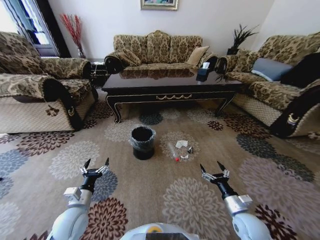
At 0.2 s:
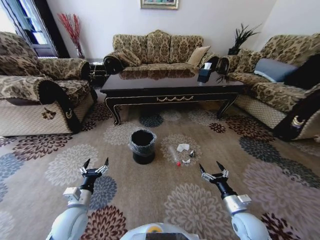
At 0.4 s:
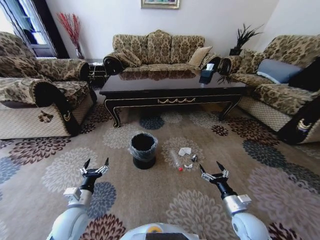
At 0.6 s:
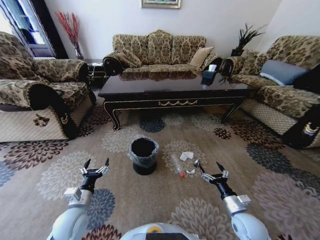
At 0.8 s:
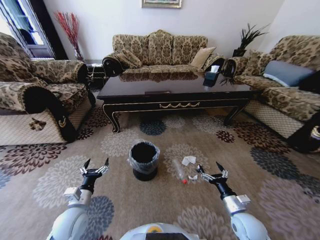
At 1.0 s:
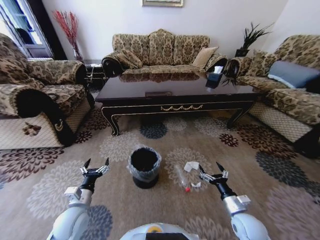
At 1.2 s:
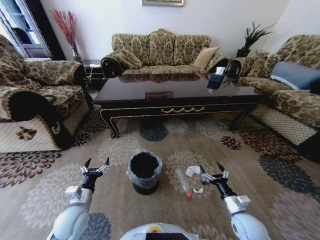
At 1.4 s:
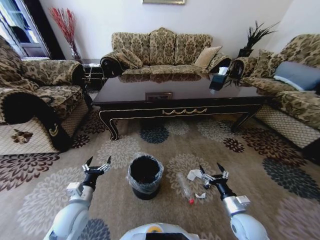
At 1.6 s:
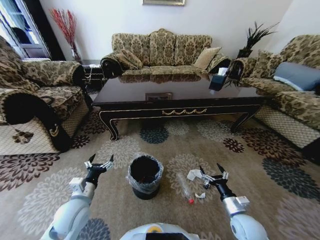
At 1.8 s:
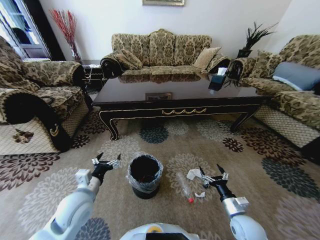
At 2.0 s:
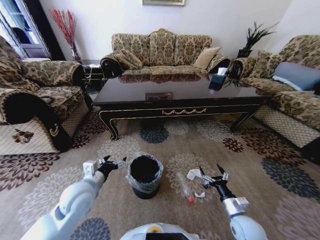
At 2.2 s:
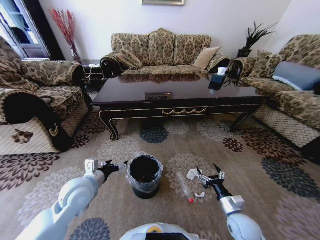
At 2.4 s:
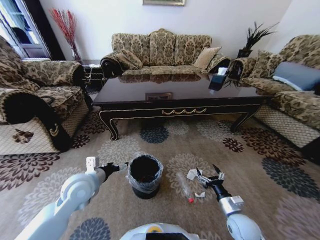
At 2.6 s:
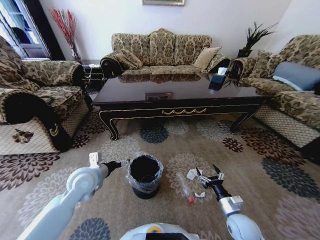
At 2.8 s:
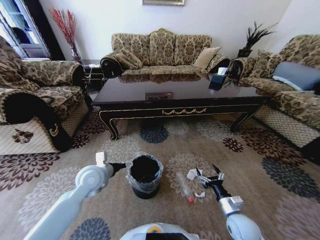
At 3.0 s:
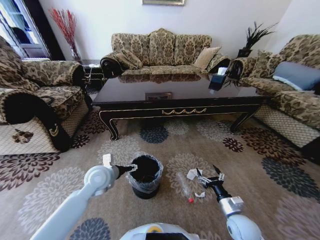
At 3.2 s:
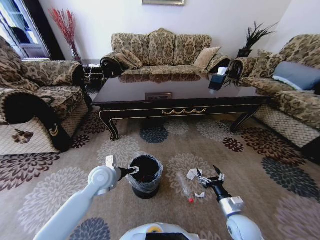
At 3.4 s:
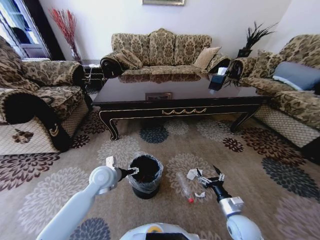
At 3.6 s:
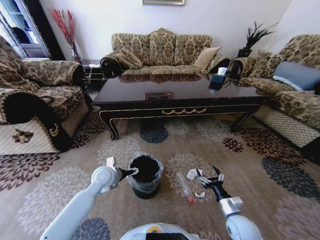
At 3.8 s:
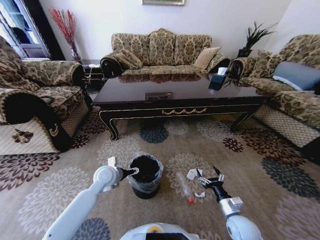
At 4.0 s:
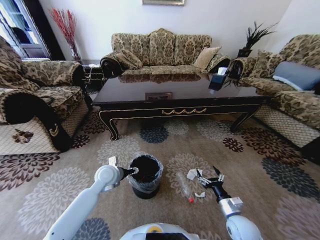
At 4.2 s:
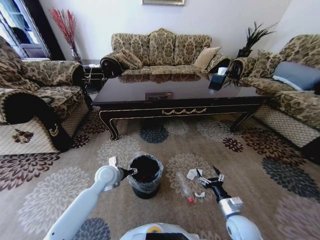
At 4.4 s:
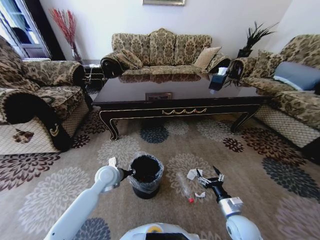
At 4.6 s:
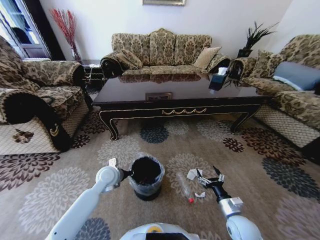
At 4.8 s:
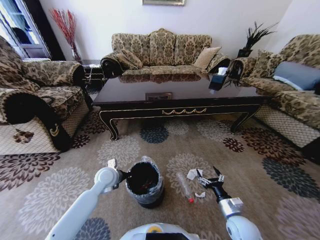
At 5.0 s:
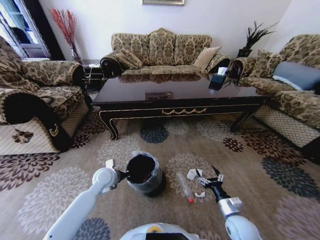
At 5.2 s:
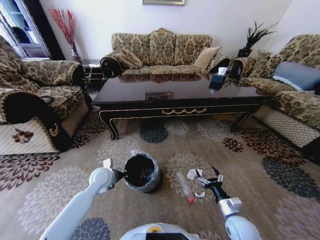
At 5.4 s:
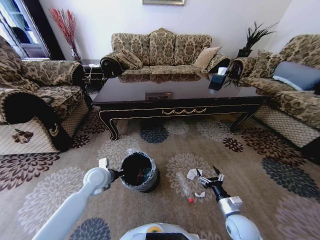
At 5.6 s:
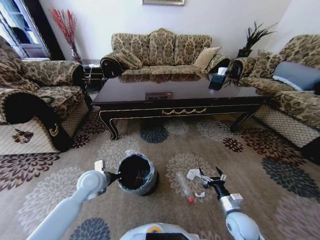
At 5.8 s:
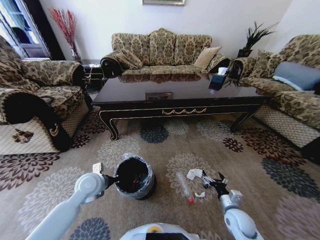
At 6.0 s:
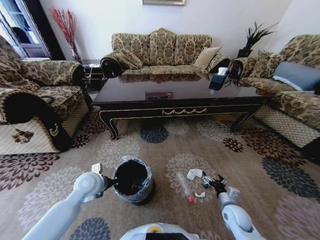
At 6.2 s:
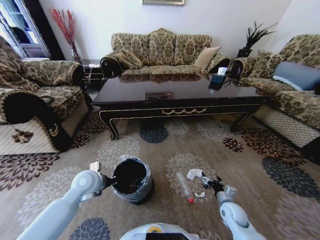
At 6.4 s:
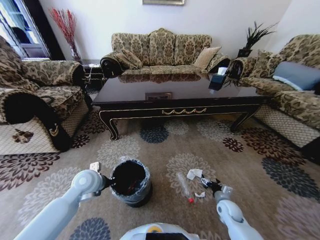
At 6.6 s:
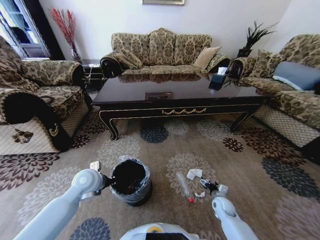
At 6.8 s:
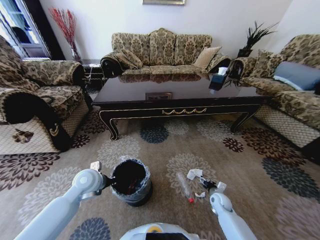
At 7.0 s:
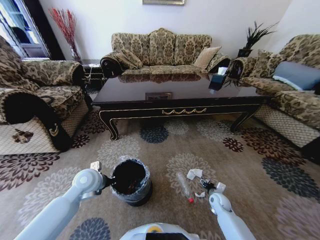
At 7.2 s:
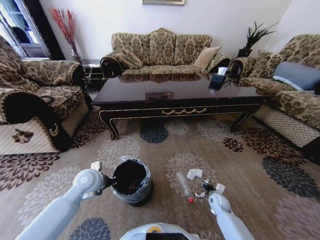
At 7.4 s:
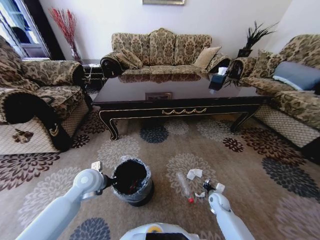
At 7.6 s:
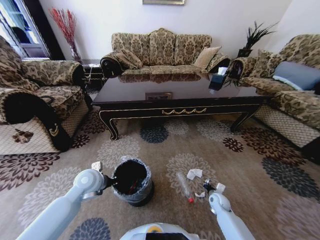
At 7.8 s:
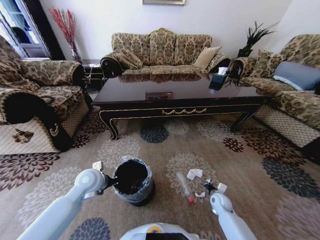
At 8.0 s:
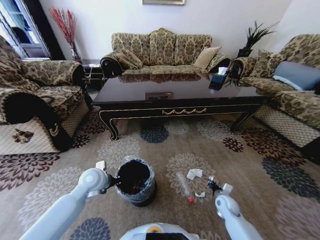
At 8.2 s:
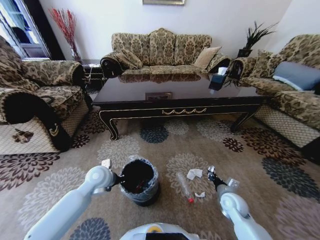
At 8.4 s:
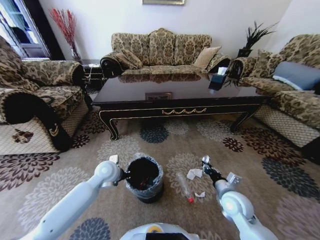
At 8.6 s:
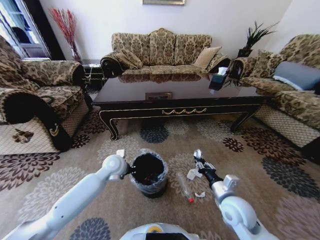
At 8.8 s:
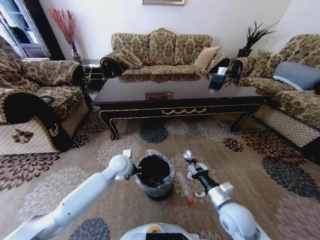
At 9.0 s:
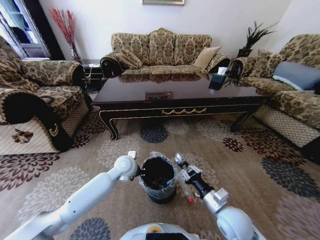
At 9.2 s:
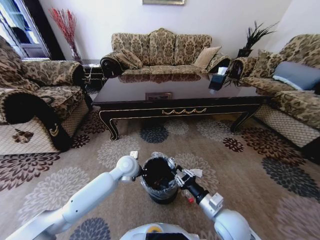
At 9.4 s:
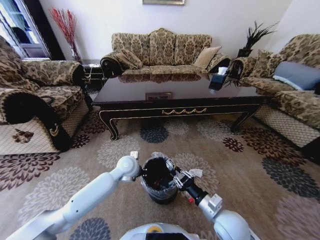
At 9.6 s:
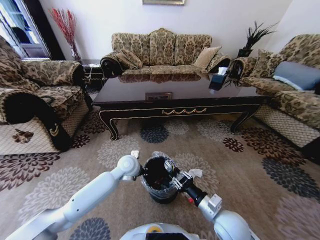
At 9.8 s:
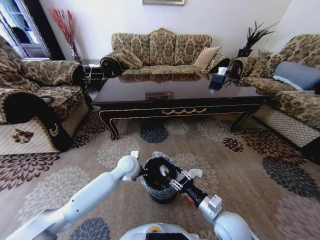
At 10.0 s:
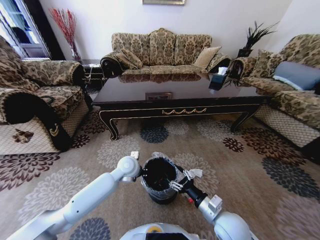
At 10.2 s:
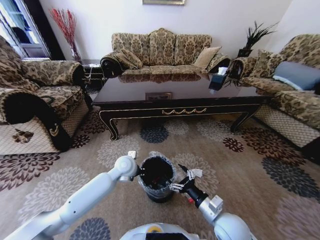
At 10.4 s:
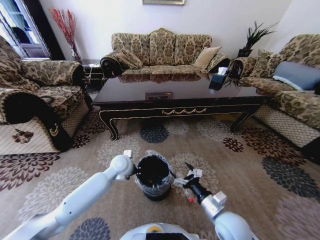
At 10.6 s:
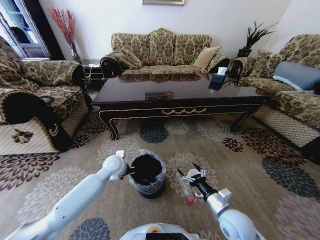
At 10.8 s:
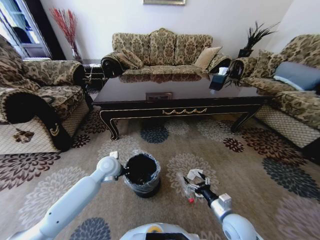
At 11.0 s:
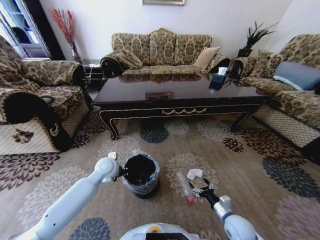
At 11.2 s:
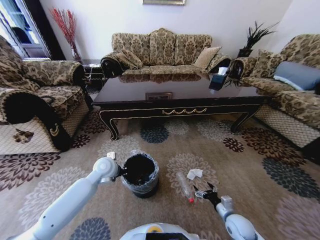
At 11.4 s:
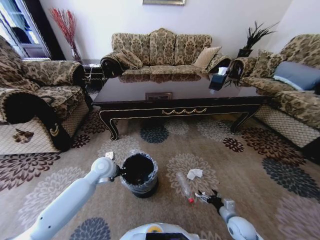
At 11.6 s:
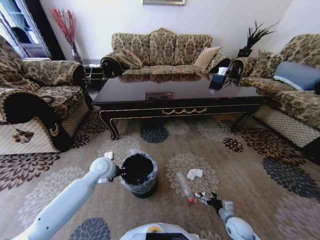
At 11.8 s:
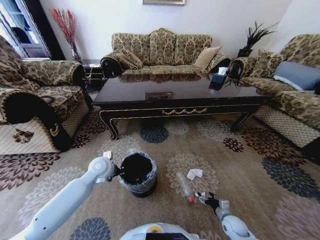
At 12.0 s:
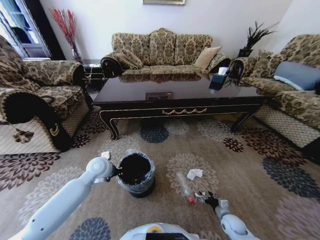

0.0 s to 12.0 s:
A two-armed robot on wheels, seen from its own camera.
Task of the whole recording: Move to the front of the table and pick up the trash from the floor, then place it into the trash bin.
0.0 to 1.6 s: The left gripper shifts by approximately 5 cm.
1.6 to 3.0 s: The left gripper moves forward and to the right, approximately 10 cm.
3.0 to 4.4 s: The left gripper heads downward, covering some 5 cm, and closes.
4.4 to 6.0 s: The left gripper changes place by some 10 cm, and closes.
6.0 to 7.6 s: The right gripper heads downward and forward, covering approximately 10 cm, and closes up.
7.6 to 9.0 s: The left gripper moves to the right and forward, about 15 cm; the right gripper travels upward, backward and to the left by some 25 cm.
9.0 to 10.4 s: The right gripper opens up.
10.4 to 12.0 s: The right gripper heads downward and to the right, covering roughly 25 cm, and closes, while the left gripper heads to the left, covering some 10 cm.

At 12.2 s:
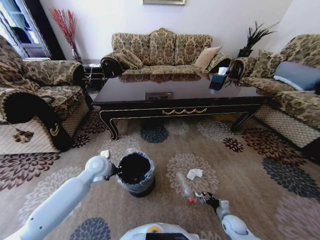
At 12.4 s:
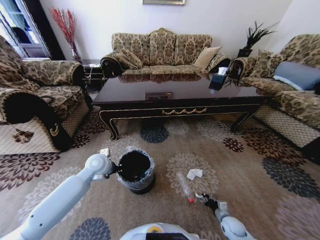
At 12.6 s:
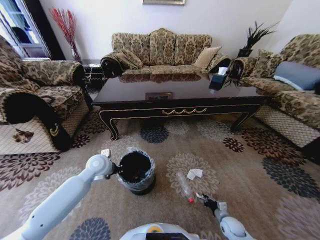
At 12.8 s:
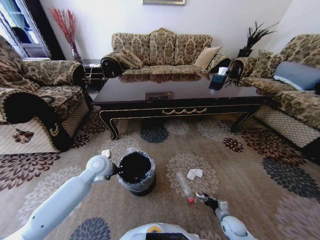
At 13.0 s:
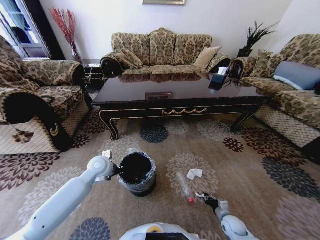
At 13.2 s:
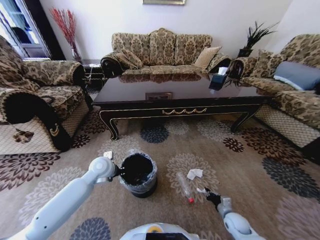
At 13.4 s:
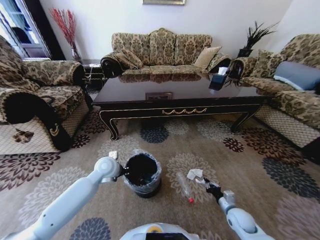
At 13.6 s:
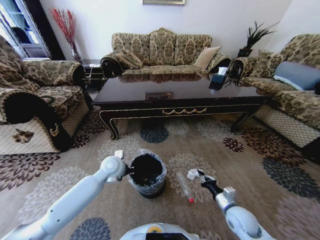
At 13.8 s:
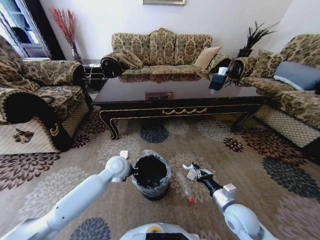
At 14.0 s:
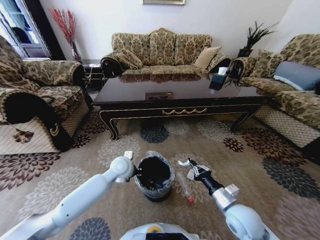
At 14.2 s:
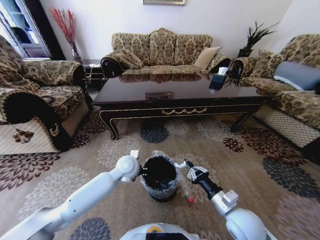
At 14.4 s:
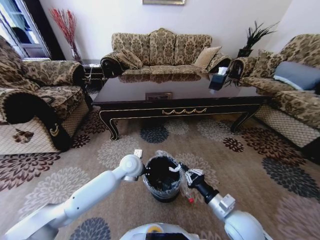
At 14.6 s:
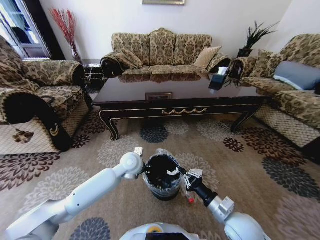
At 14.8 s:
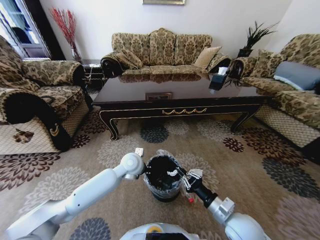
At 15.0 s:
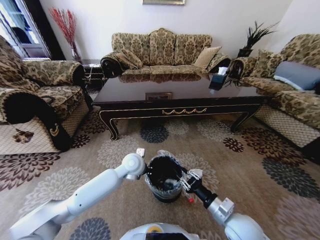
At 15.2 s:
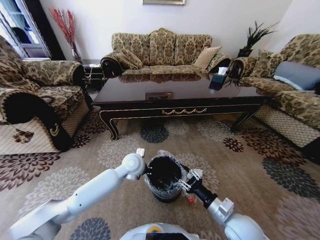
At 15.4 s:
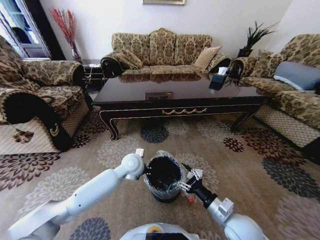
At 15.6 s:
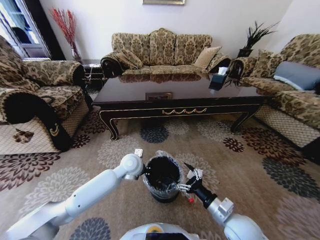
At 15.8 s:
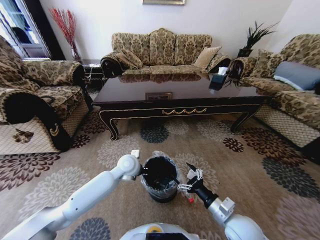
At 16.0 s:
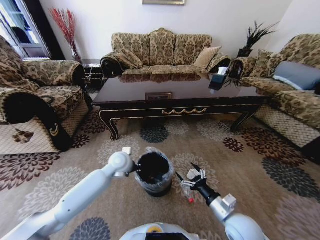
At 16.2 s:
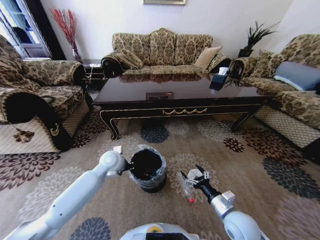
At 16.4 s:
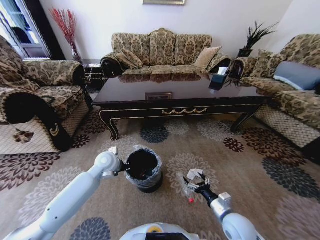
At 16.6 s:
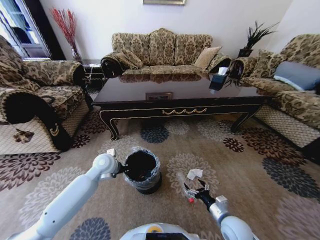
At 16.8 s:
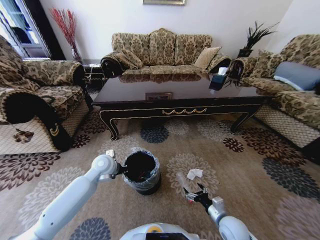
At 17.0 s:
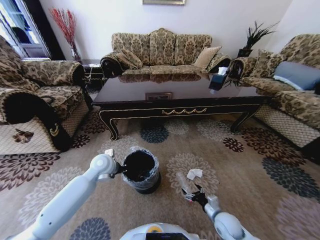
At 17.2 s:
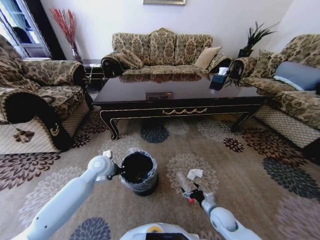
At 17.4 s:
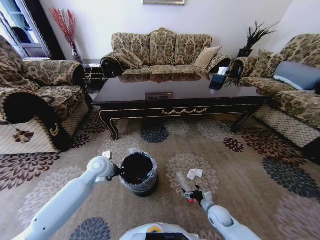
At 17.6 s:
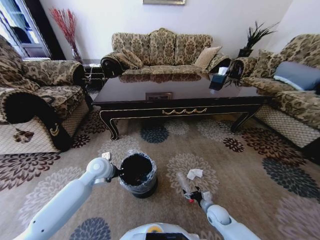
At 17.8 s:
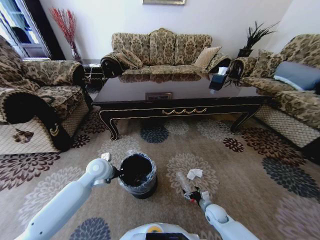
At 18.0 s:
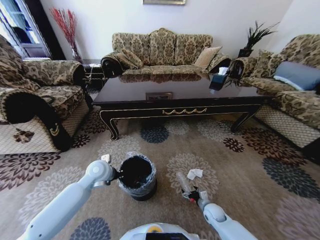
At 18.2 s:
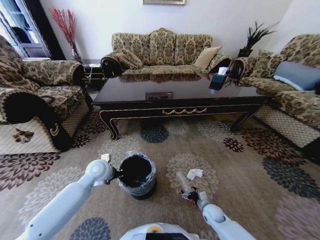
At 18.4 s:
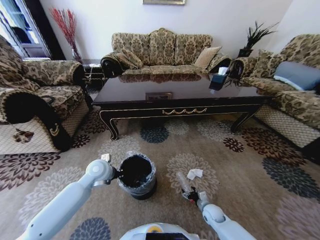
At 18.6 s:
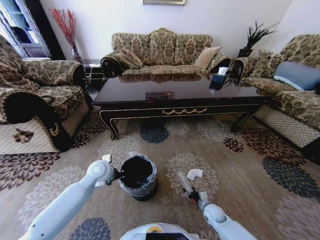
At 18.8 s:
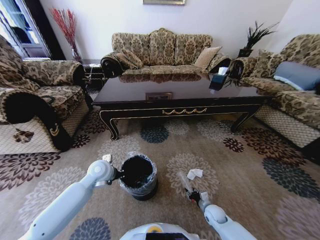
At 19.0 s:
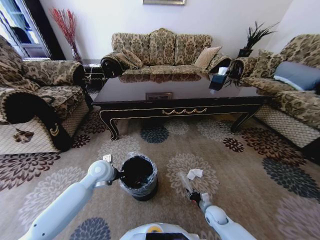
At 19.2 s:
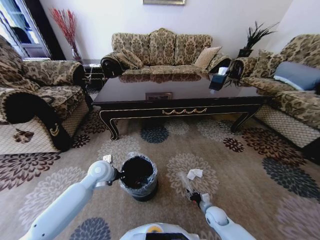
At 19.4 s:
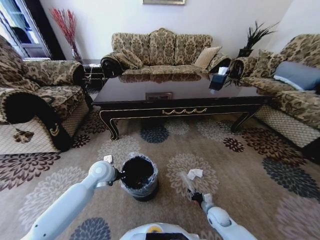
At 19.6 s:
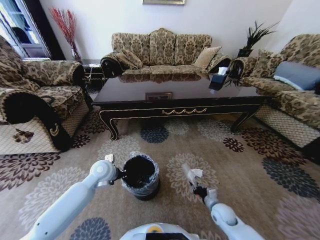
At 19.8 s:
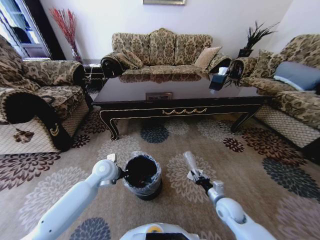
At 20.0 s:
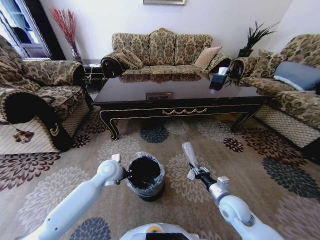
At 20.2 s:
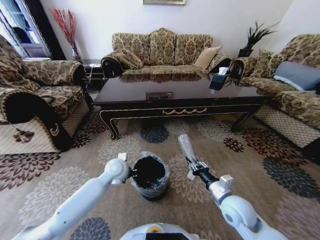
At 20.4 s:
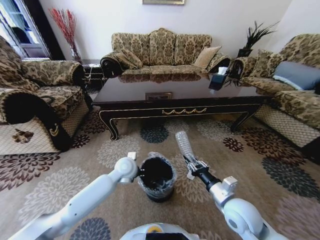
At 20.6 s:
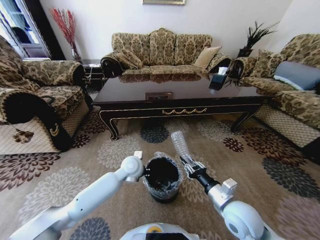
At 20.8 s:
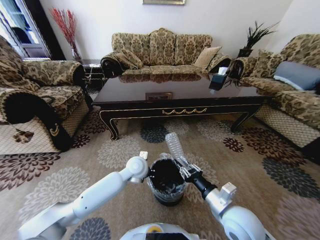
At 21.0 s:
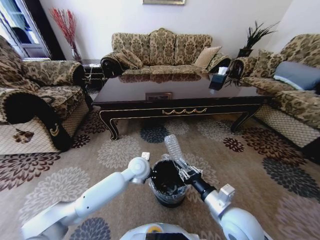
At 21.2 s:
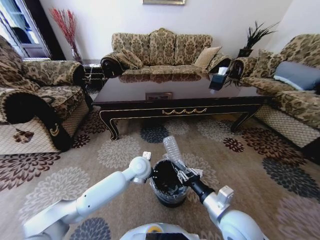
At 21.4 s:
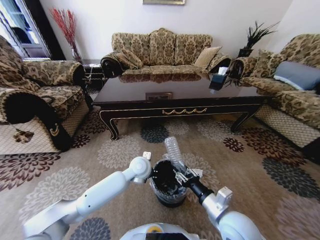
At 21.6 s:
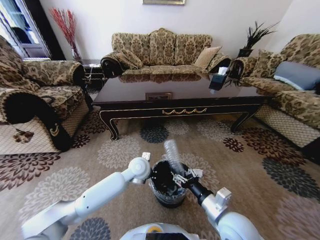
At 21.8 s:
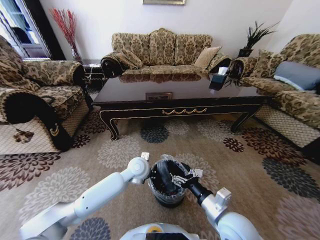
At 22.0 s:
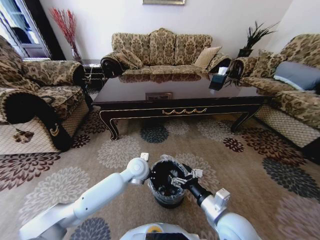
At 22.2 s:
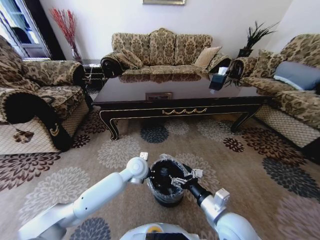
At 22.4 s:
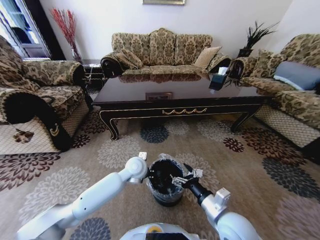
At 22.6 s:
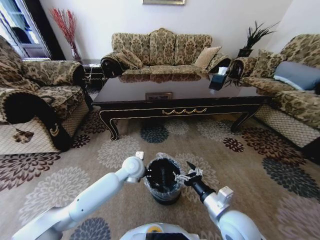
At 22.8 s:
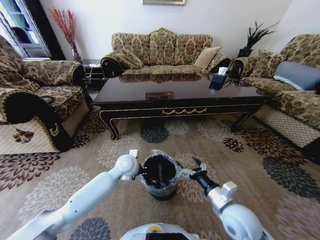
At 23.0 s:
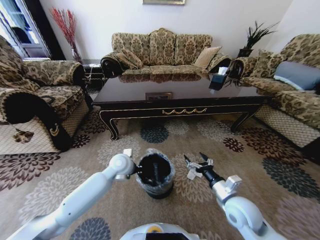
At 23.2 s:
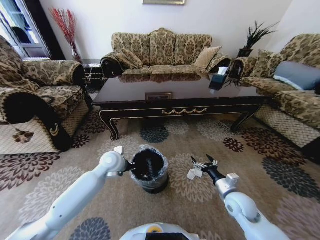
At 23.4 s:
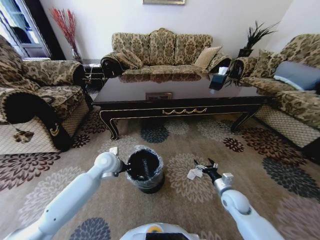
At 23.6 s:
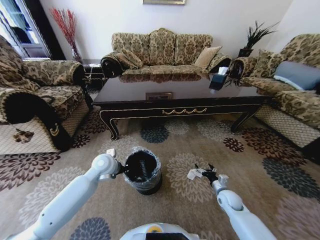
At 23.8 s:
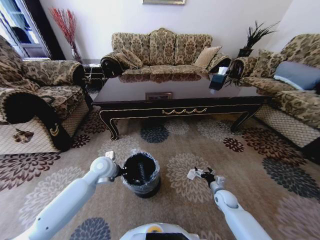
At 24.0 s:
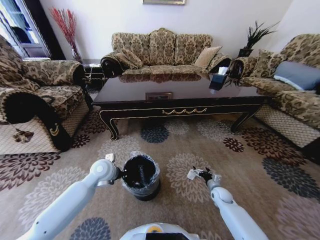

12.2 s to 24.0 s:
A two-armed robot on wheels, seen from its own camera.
Task of the whole recording: Move to the front of the table and pick up the trash from the floor, then place it into the trash bin.
12.2 to 13.6 s: The right gripper goes some 15 cm upward, and closes its fingers; the left gripper shifts about 5 cm to the right.
13.6 to 15.2 s: The left gripper heads to the right, covering some 10 cm; the right gripper is displaced upward and to the left by about 10 cm, and opens.
15.2 to 16.6 s: The right gripper travels downward by about 10 cm, and opens its fingers; the left gripper travels to the left by roughly 10 cm.
16.6 to 18.2 s: The right gripper goes approximately 15 cm downward and forward.
18.2 to 19.6 s: The right gripper is displaced upward by roughly 5 cm, and closes up.
19.6 to 21.0 s: The right gripper goes some 20 cm upward. The left gripper moves to the right, some 15 cm.
21.0 to 22.6 s: The right gripper opens up.
22.6 to 24.0 s: The right gripper goes roughly 30 cm downward, forward and to the right. The left gripper heads to the left, covering approximately 10 cm.
